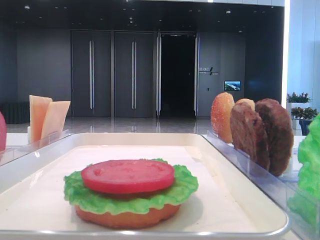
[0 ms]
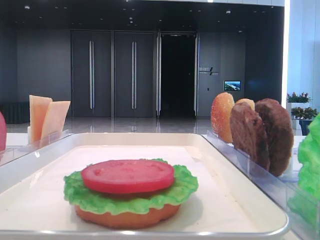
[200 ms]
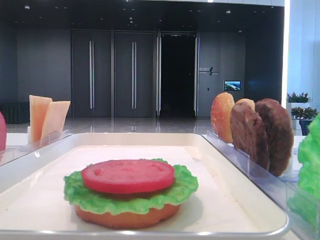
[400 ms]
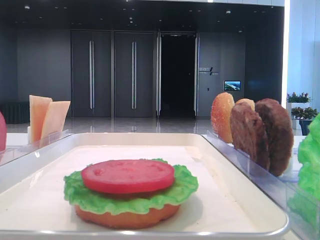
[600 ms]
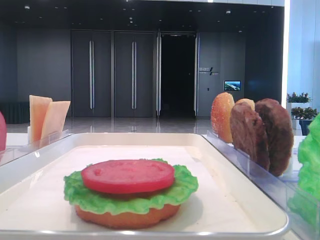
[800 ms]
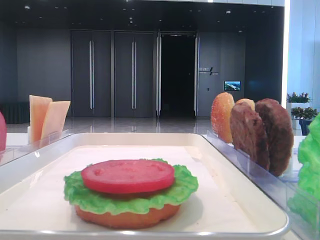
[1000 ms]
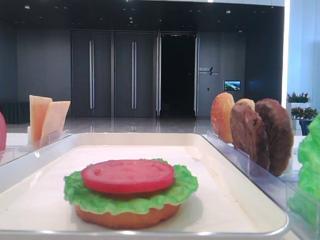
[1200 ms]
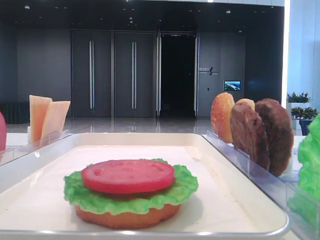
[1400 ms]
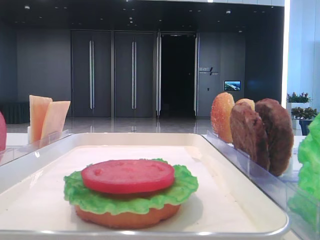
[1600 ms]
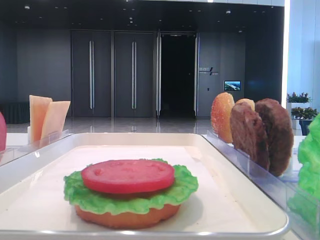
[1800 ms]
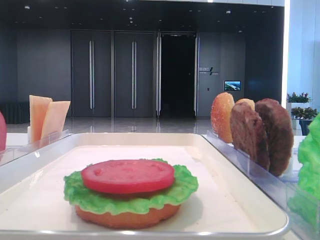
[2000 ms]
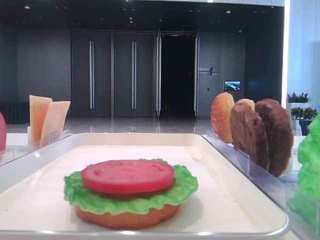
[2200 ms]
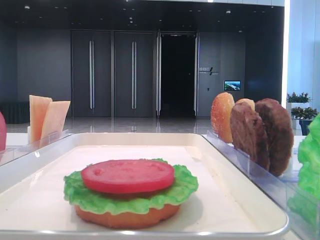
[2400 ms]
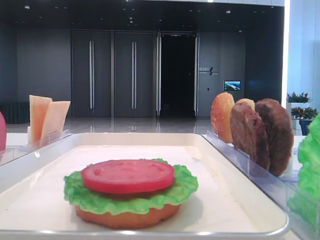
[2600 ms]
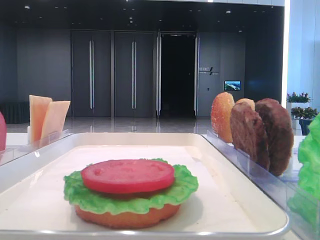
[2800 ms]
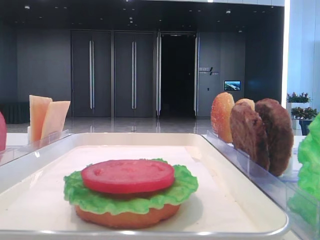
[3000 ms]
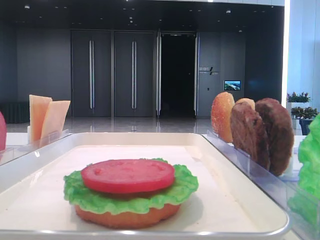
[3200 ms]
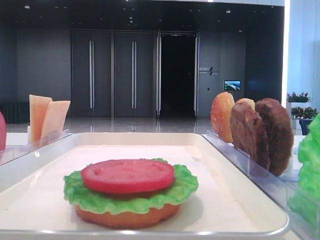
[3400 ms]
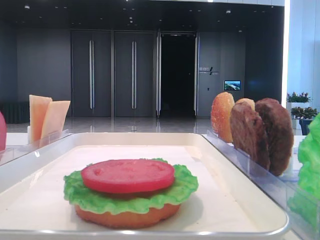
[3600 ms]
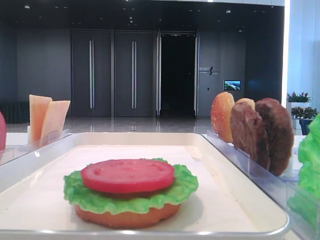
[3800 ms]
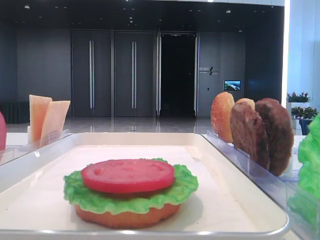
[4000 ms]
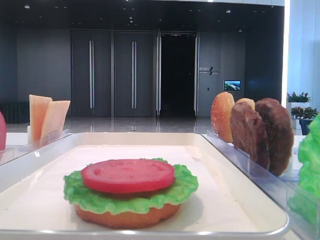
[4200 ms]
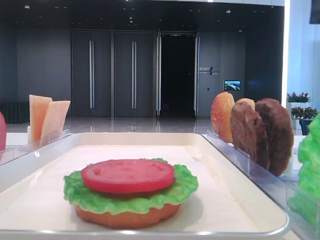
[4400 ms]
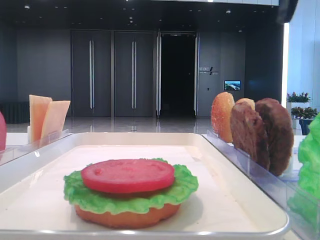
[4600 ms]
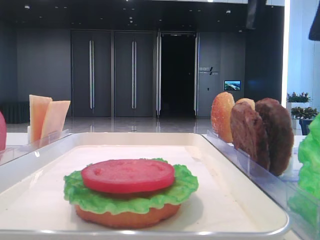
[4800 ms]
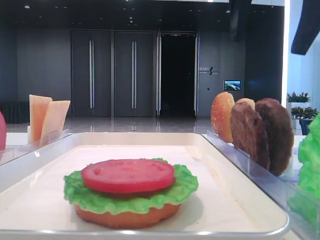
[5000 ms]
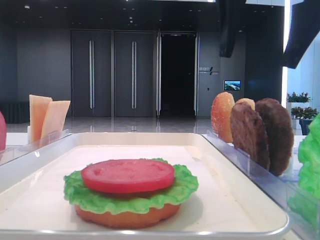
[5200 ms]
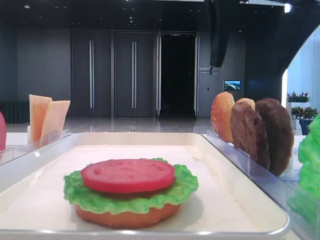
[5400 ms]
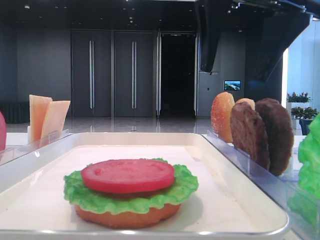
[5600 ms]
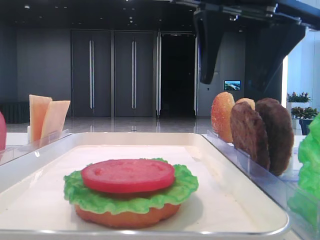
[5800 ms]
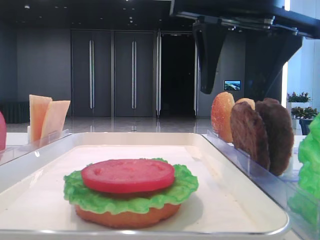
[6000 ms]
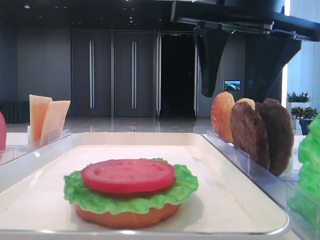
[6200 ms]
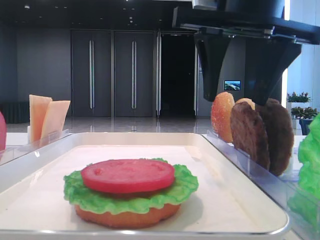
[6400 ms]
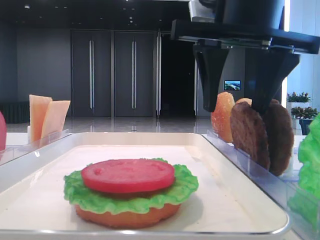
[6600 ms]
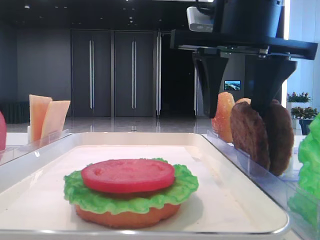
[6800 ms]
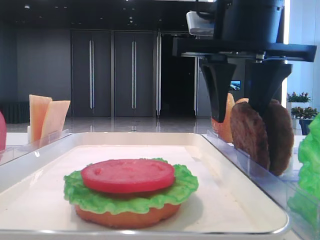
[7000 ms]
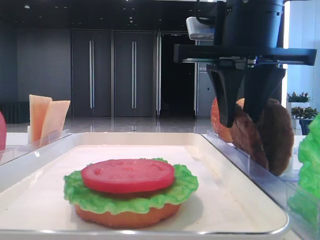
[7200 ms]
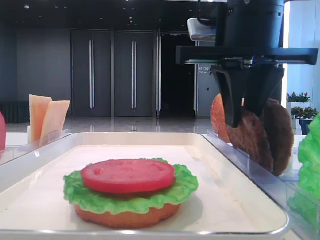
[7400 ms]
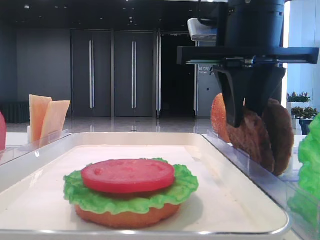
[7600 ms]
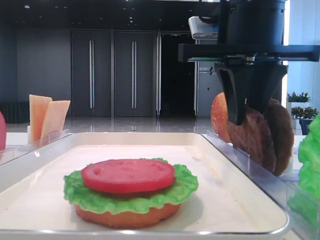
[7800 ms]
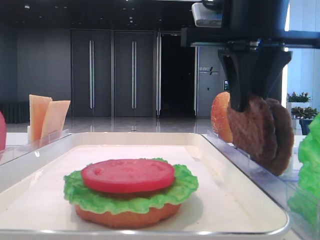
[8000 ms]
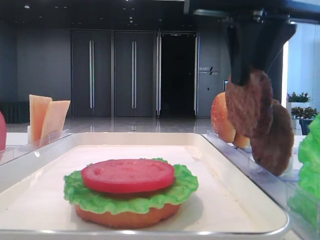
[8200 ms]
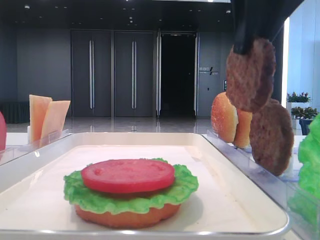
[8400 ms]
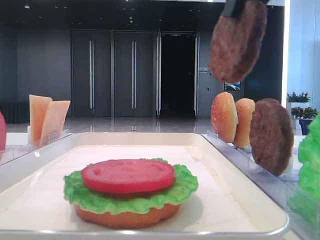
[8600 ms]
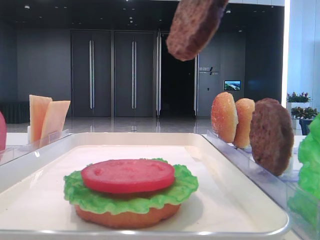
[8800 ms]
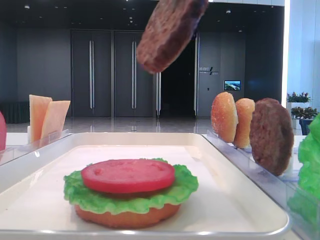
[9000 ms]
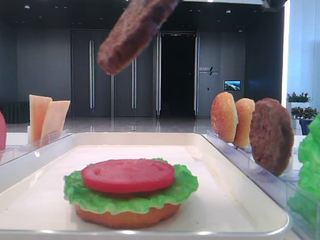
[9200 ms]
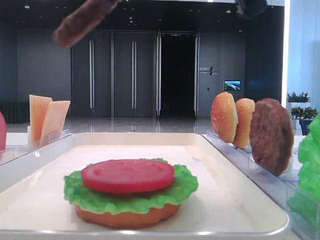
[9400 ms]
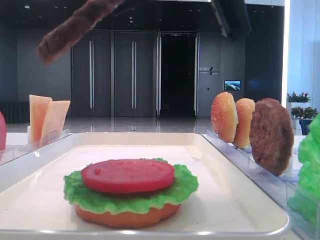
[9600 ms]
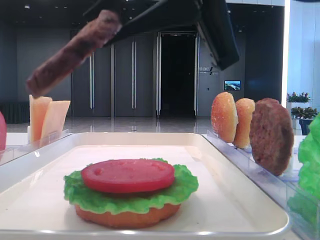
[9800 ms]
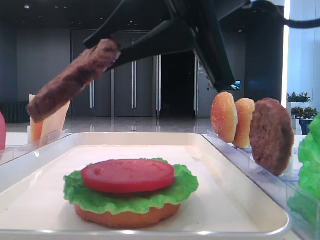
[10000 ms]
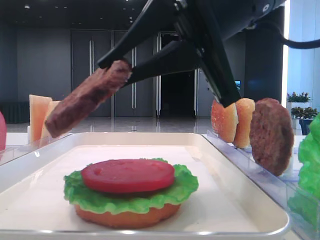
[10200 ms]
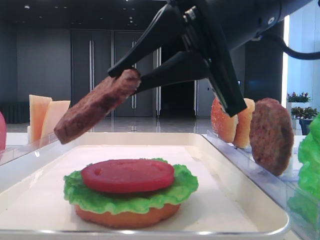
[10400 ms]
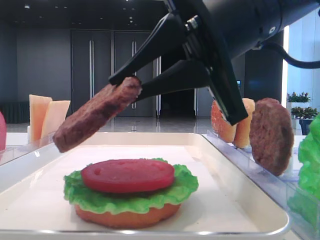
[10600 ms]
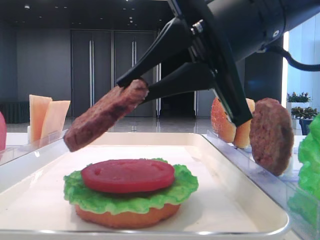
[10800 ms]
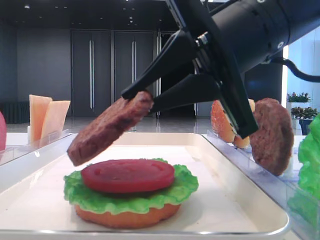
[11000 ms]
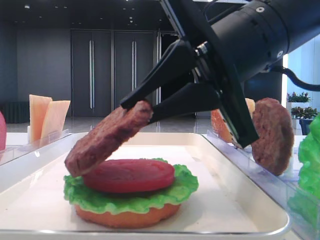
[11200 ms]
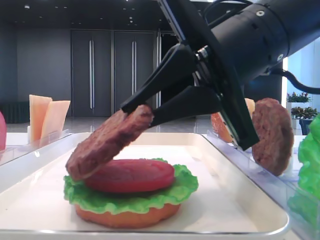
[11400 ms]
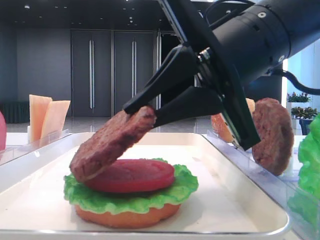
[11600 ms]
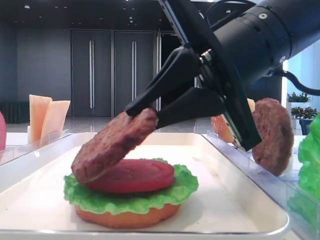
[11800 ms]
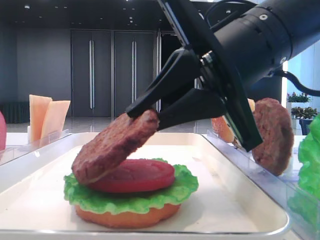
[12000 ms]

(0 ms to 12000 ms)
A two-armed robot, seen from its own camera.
Step, 0 ms - 7600 ms: Grab the patty with the right hand.
4400 ms - 6000 ms: The right gripper heads to the left and downward, covering approximately 10 cm.
6000 ms - 7600 ms: The right gripper closes.
7600 ms - 9000 ms: The right gripper heads backward and upward, covering roughly 10 cm.
9000 ms - 10400 ms: The right gripper shifts some 10 cm downward.

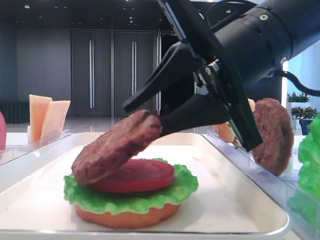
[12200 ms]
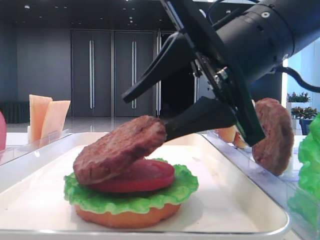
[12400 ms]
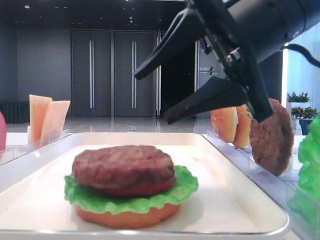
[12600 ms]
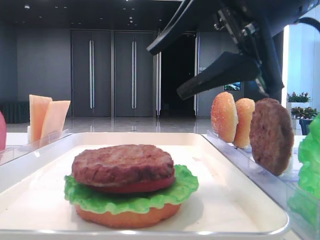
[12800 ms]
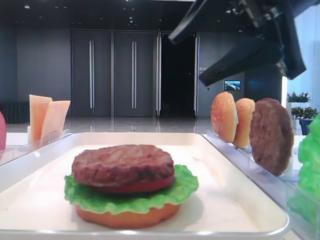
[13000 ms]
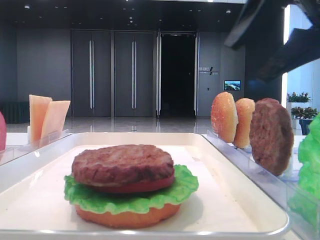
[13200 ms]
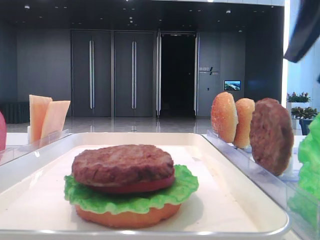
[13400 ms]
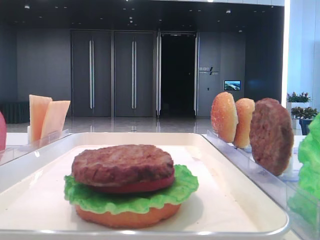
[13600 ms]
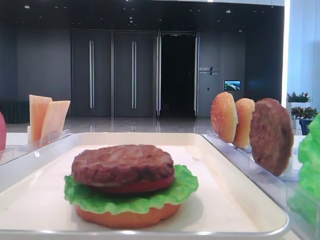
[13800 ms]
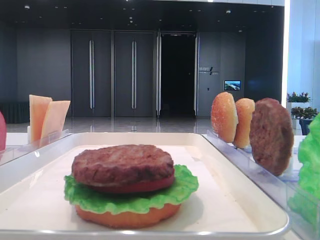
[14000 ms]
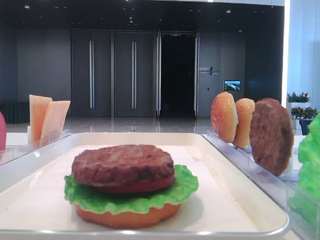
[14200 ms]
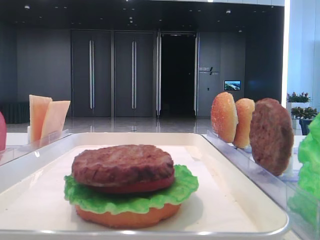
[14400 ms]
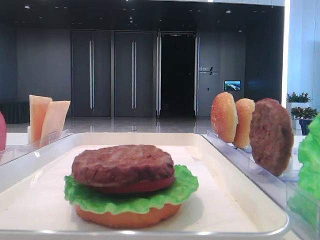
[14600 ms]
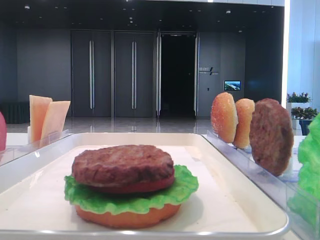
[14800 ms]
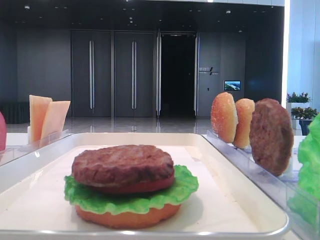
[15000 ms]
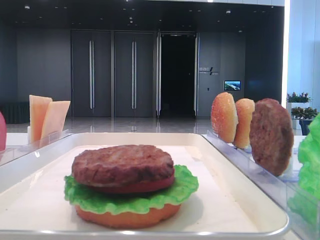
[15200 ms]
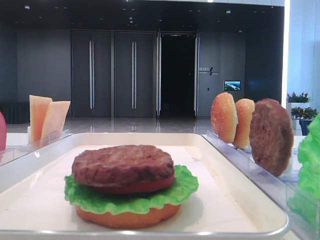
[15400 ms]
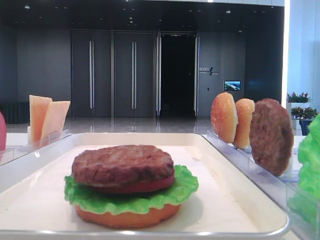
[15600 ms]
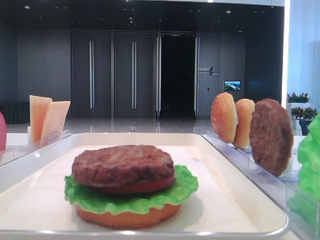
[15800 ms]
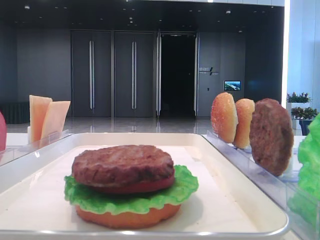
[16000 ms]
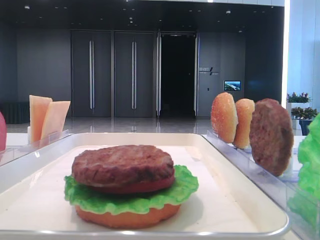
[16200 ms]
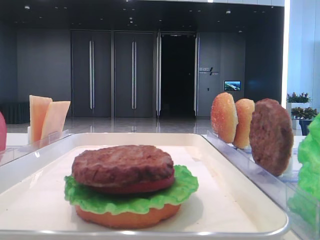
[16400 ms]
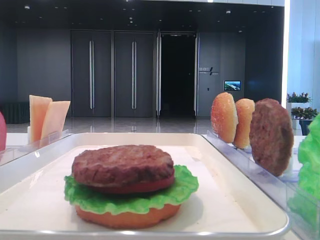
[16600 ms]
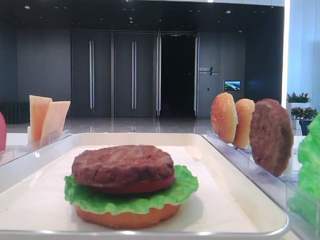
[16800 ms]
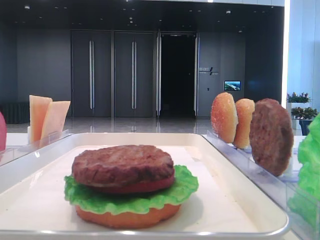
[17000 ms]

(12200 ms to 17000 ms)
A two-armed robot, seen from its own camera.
12200 ms - 13800 ms: The right gripper moves to the right and upward, some 20 cm.

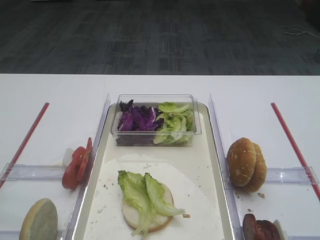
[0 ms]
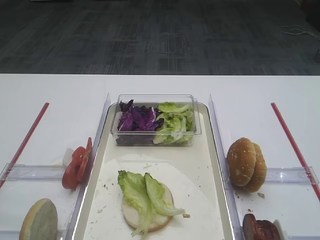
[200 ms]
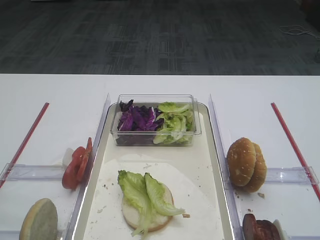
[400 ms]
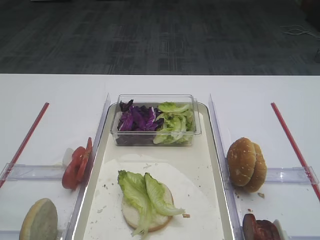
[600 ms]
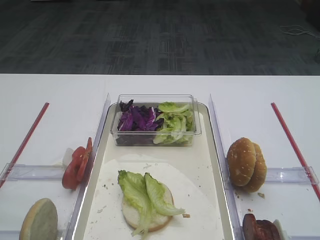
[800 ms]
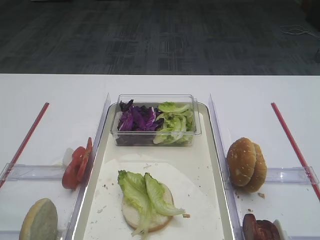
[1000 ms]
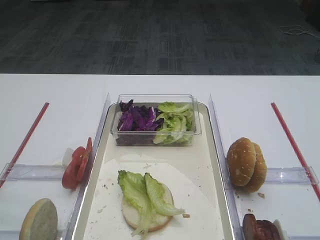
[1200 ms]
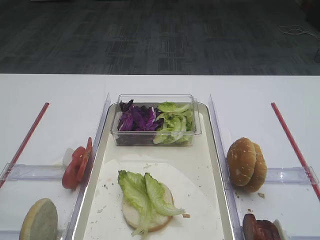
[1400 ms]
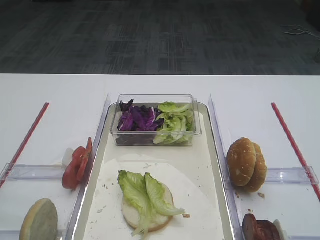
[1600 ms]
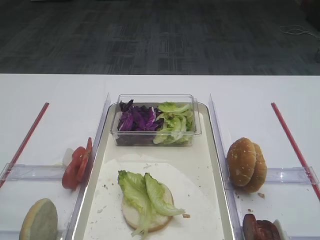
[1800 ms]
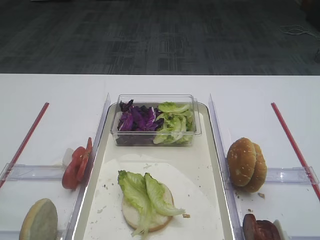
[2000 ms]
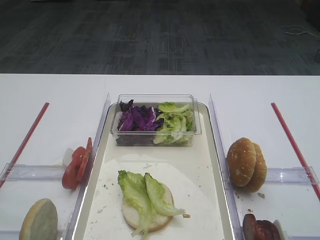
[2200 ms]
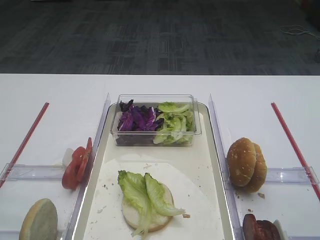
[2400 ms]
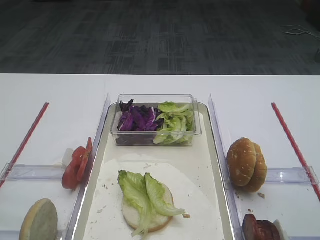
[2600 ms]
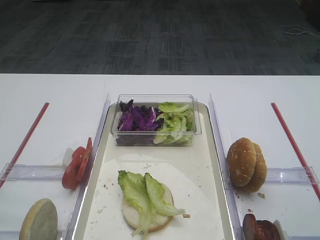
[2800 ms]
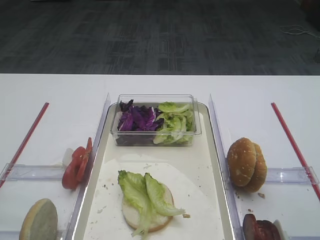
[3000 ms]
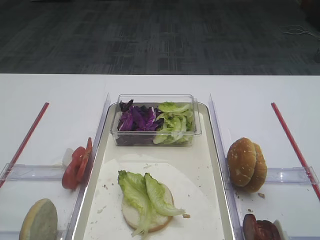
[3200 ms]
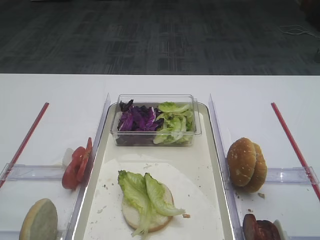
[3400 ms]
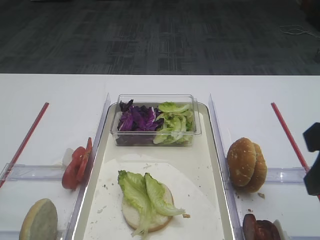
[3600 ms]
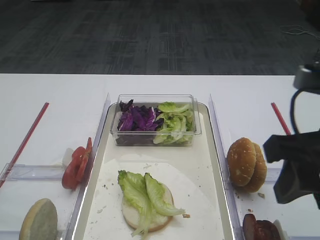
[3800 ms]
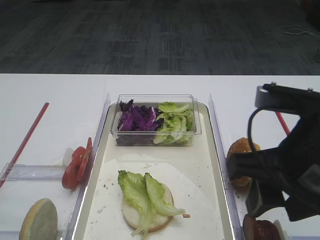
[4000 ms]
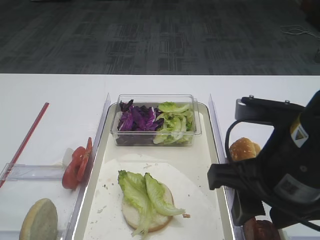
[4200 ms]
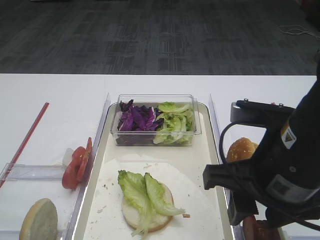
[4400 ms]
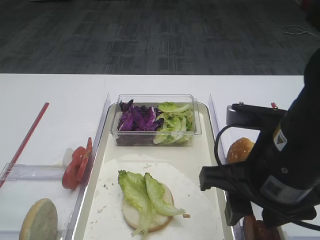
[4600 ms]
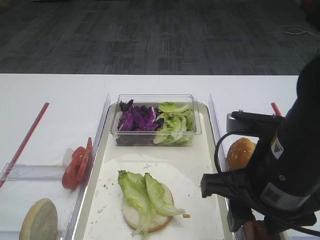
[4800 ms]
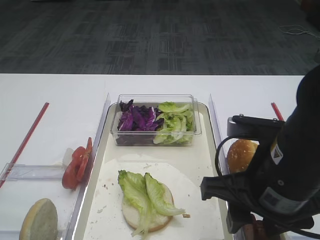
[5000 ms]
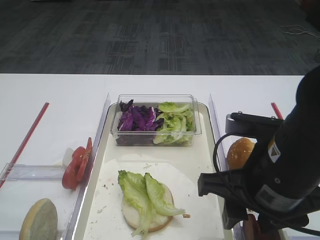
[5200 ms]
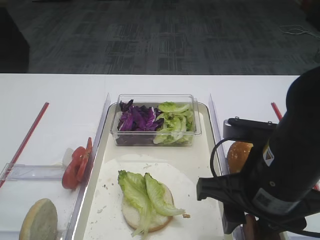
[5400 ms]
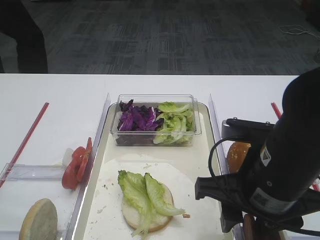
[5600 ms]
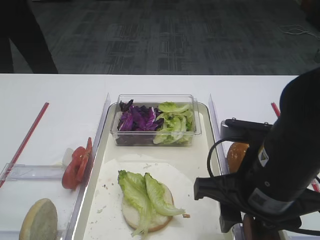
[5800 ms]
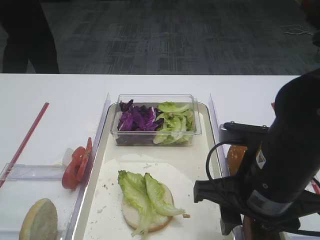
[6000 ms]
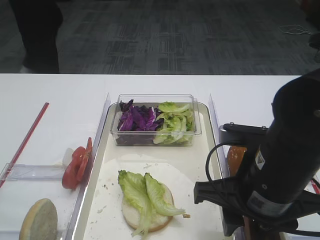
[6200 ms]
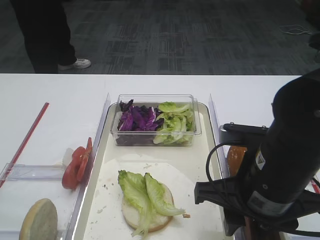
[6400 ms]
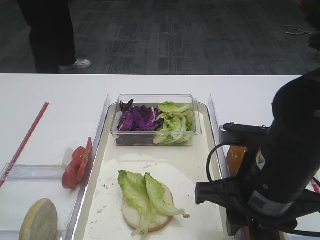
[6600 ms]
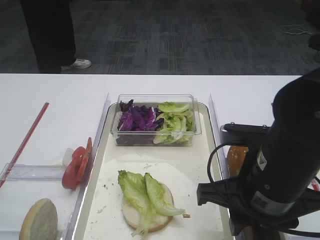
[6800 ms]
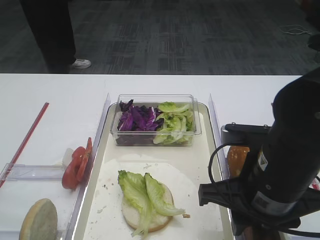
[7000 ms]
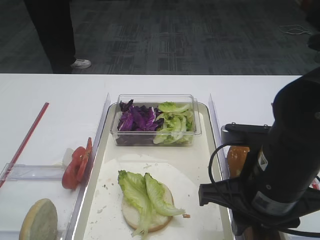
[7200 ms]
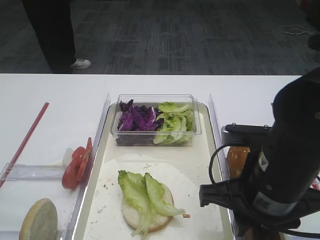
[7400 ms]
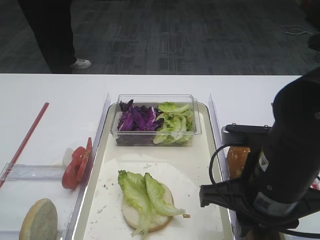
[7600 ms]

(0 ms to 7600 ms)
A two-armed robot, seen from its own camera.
3000 ms - 4600 ms: The right gripper heads to the left and downward, covering approximately 15 cm.
4600 ms - 6000 ms: The grippers stay close to where they were, moving slightly.
6000 ms - 7600 ms: The right gripper closes its fingers.
